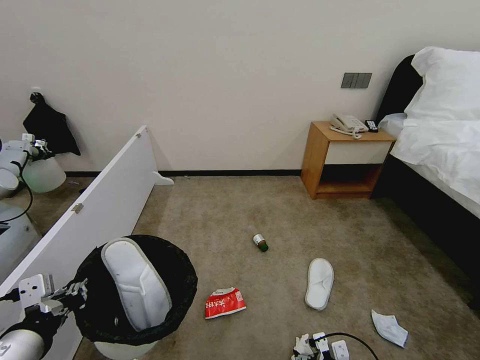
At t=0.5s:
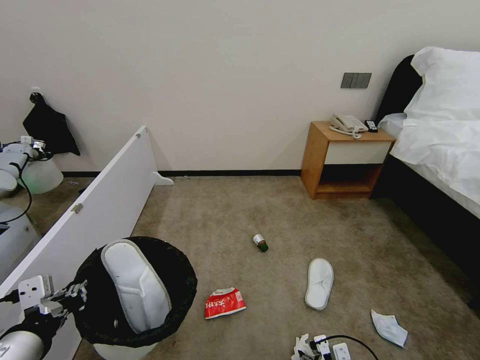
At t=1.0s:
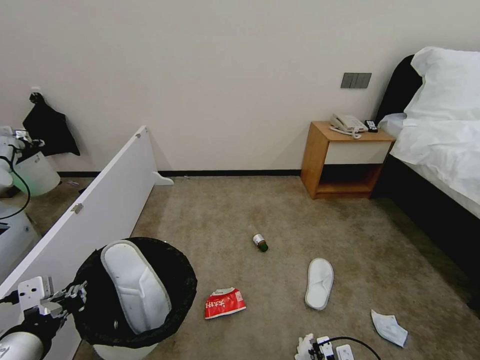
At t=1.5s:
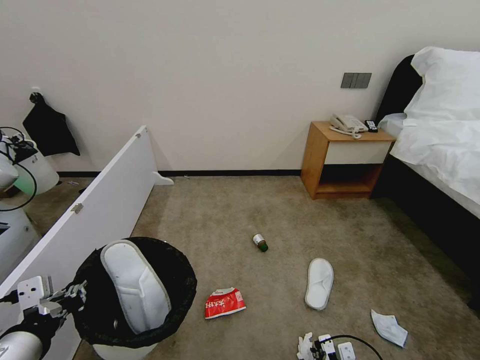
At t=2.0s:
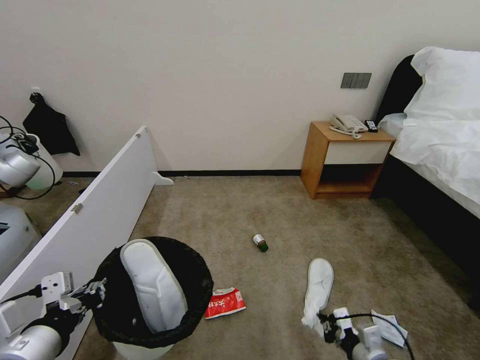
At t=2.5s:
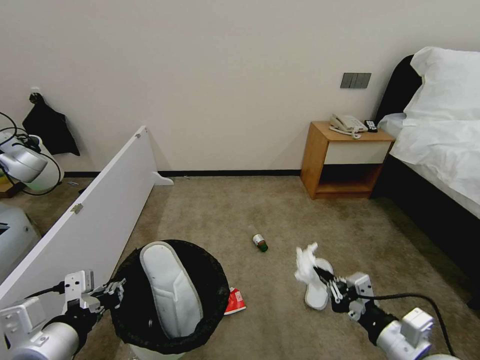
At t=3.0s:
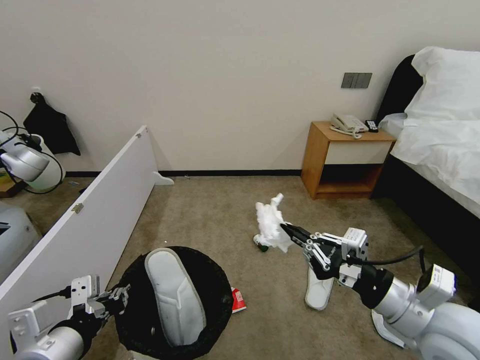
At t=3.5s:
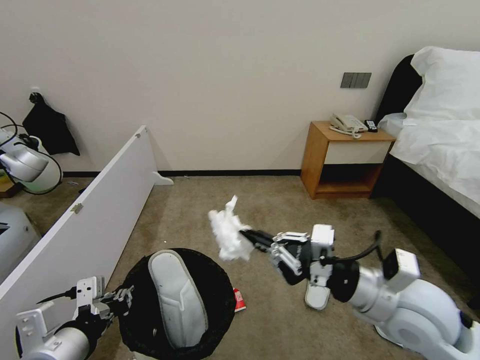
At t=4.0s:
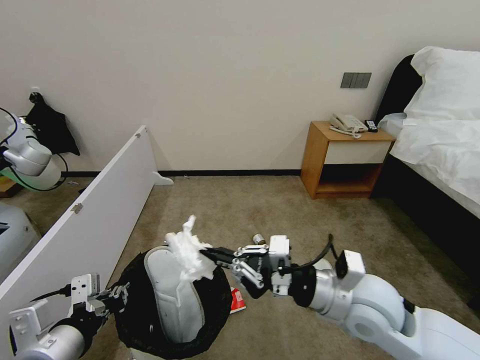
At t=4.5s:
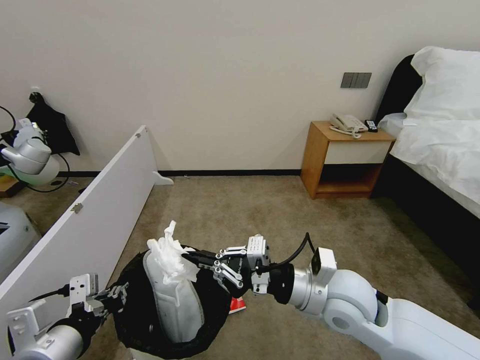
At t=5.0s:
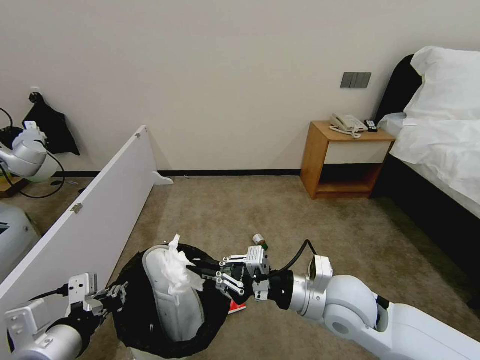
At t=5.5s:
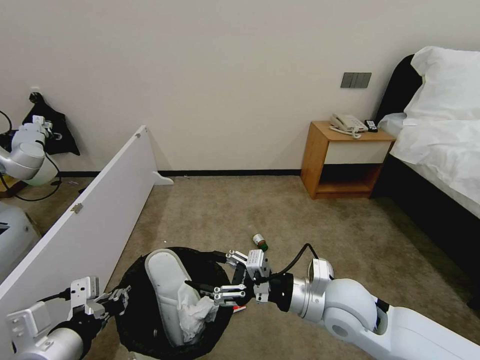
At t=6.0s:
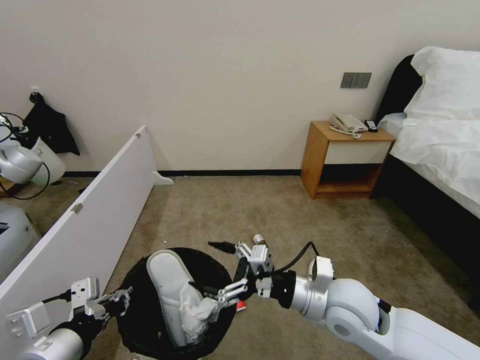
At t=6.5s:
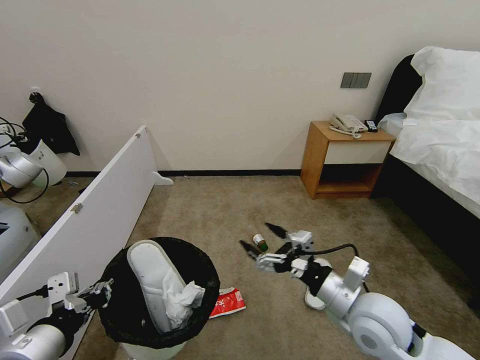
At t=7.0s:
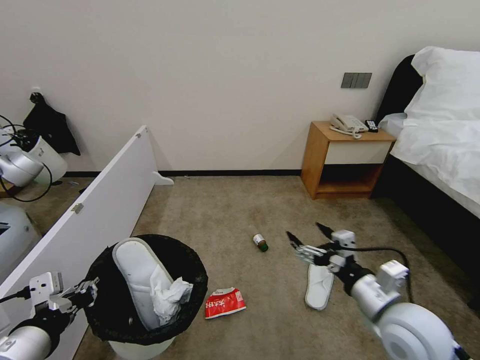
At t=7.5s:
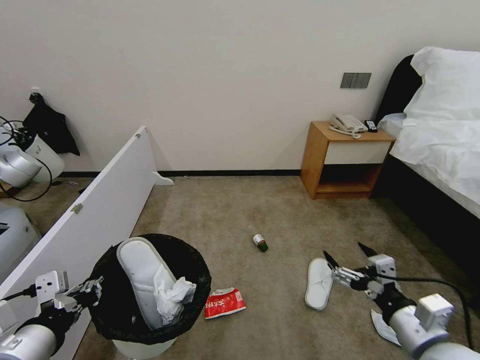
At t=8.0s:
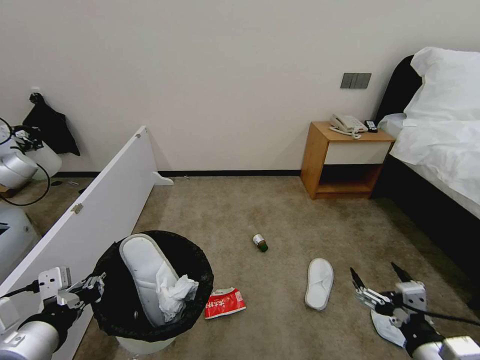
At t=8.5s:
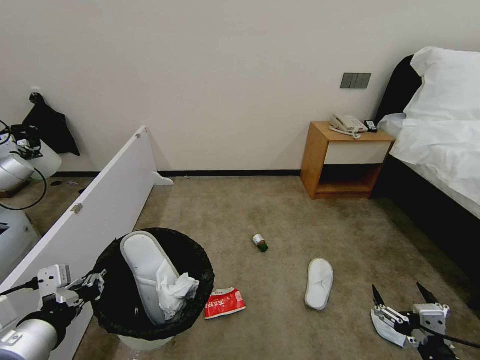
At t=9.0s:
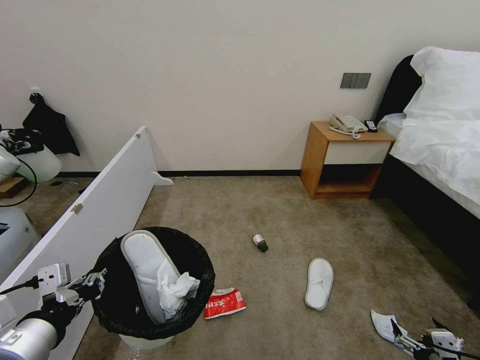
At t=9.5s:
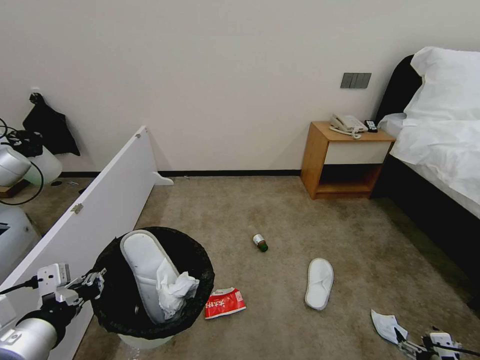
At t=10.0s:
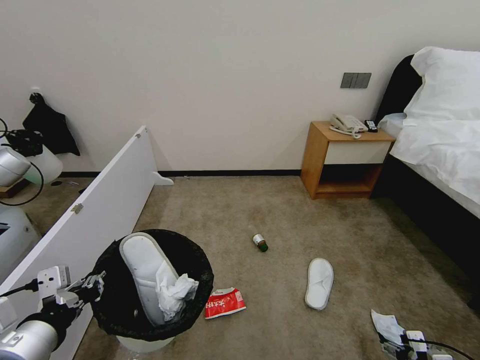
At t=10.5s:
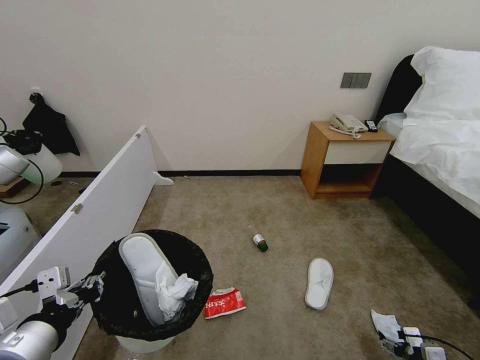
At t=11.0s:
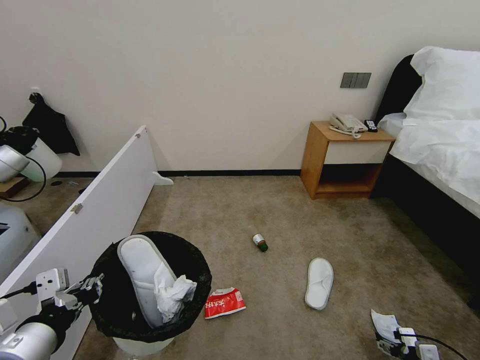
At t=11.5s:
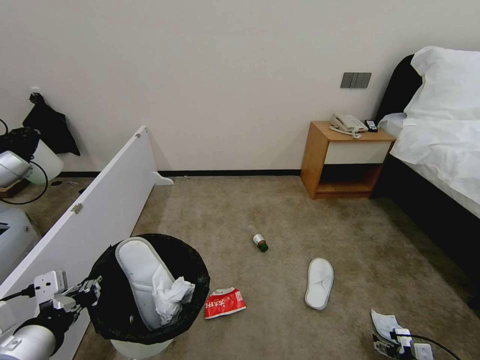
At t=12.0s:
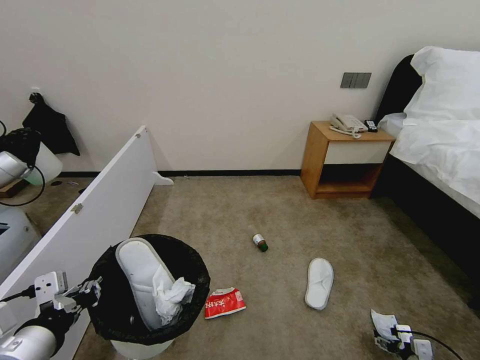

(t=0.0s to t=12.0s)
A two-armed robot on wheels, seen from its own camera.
Task of the whole recording: Pick up the trash bin, then pick up the garbage from the floor and place it into the trash bin.
t=0.0s - t=2.0s: The right gripper moves upward, roughly 10 cm, and closes.
t=2.0s - t=4.0s: The right gripper moves upward and to the left, roughly 25 cm.
t=4.0s - t=6.0s: The right gripper opens up.
t=6.0s - t=8.0s: The right gripper is displaced backward and to the right by about 20 cm.
t=8.0s - t=10.0s: The right gripper shifts approximately 25 cm downward and to the right.
t=10.0s - t=12.0s: The right gripper goes approximately 10 cm downward and forward.

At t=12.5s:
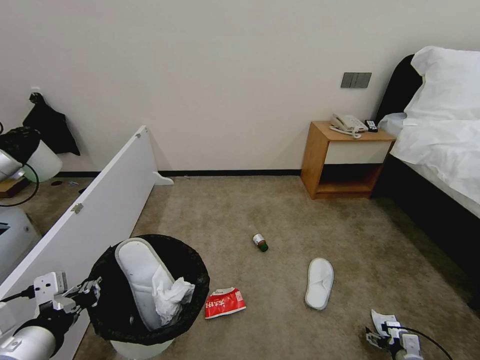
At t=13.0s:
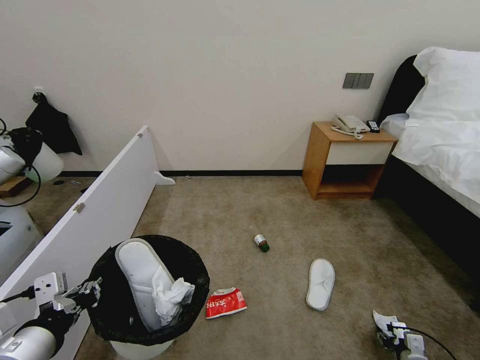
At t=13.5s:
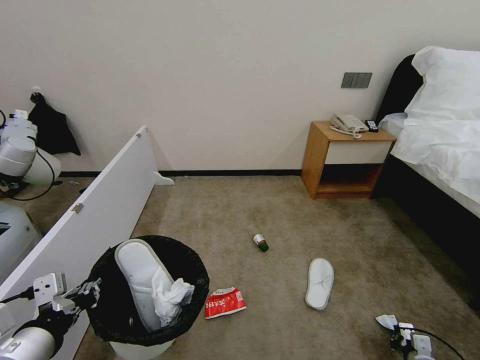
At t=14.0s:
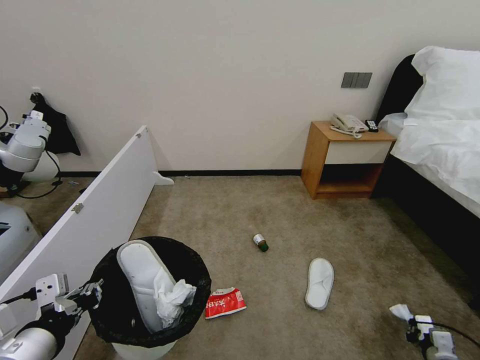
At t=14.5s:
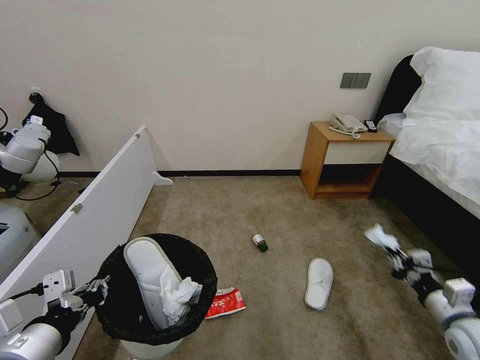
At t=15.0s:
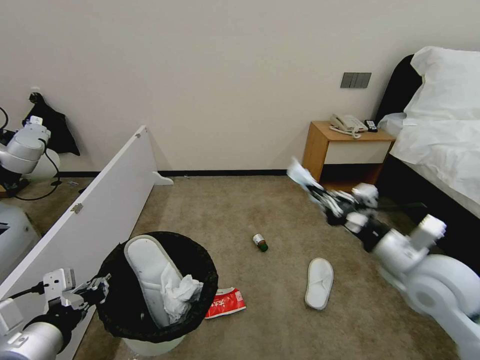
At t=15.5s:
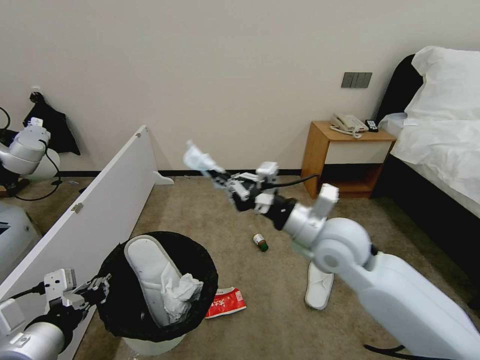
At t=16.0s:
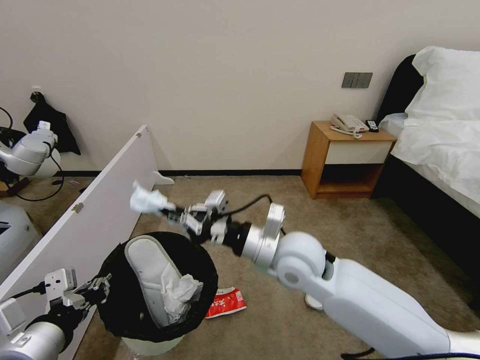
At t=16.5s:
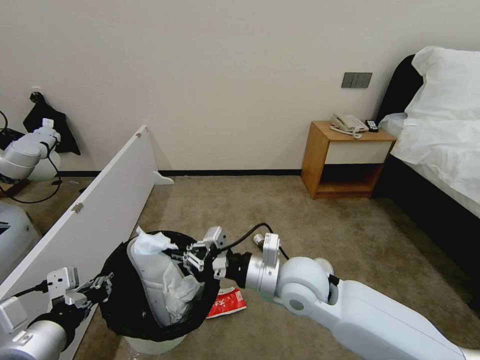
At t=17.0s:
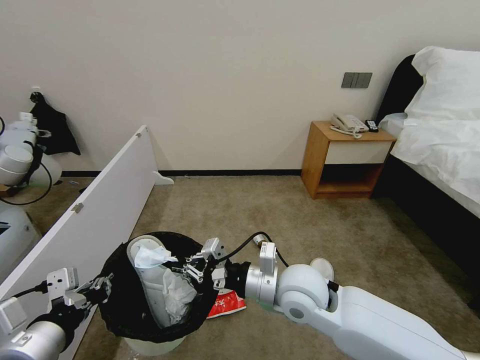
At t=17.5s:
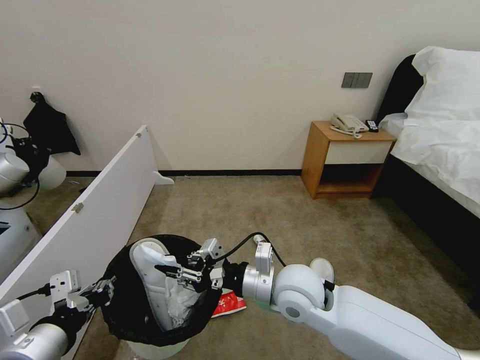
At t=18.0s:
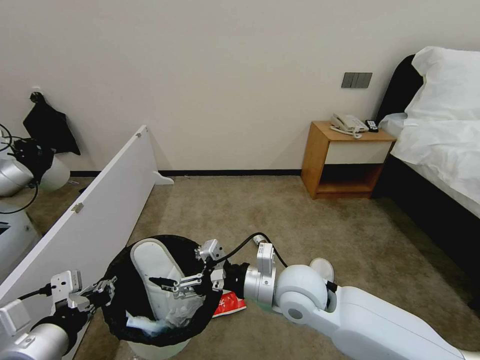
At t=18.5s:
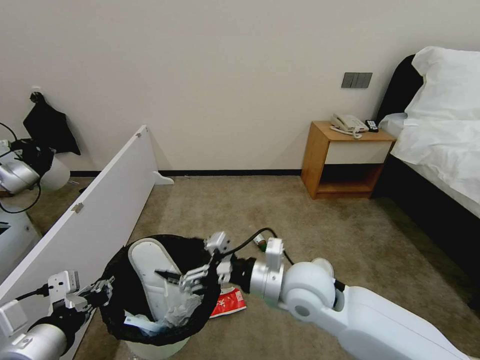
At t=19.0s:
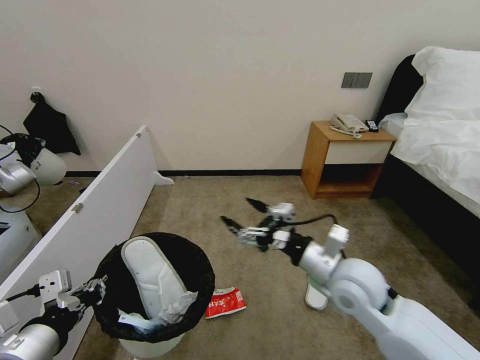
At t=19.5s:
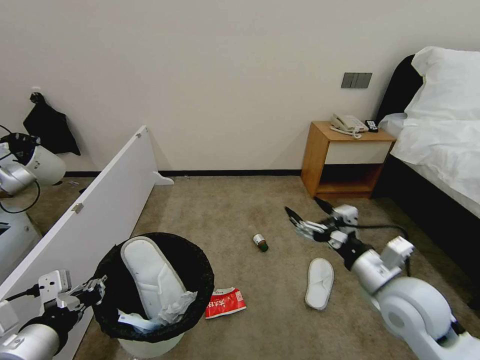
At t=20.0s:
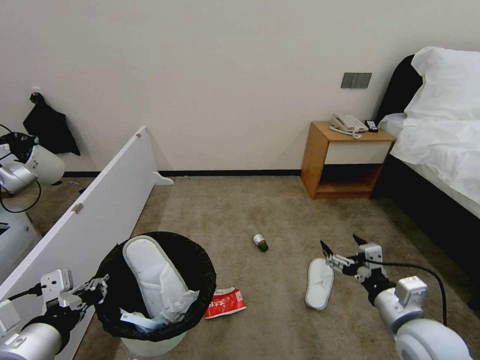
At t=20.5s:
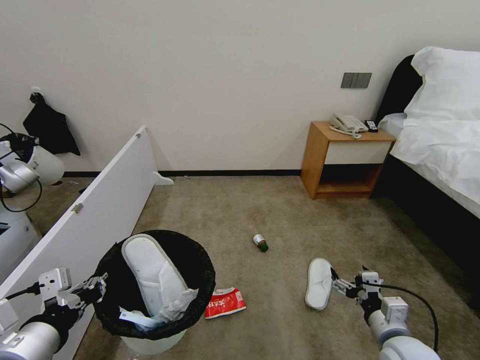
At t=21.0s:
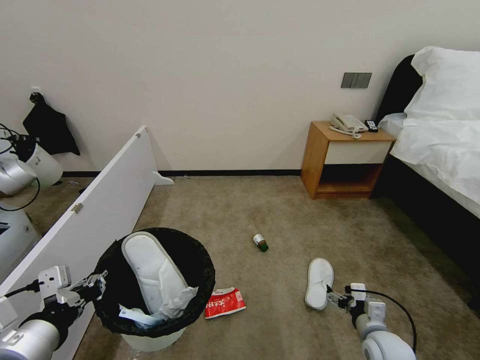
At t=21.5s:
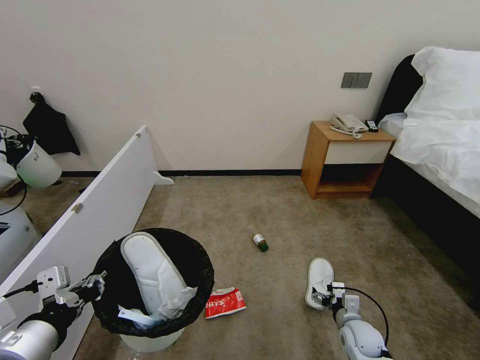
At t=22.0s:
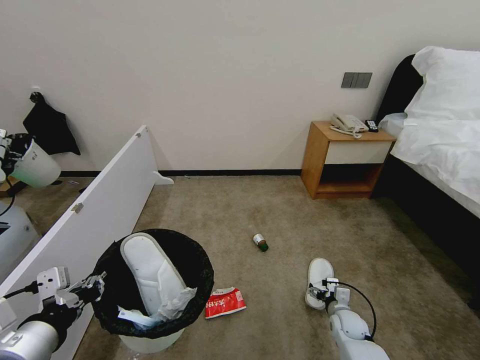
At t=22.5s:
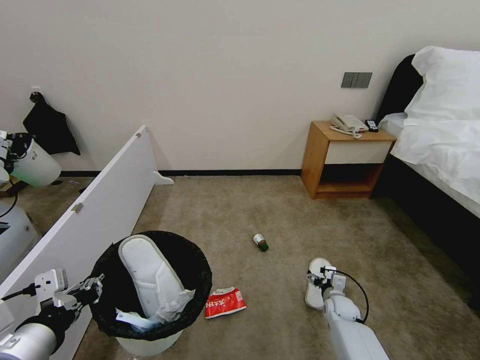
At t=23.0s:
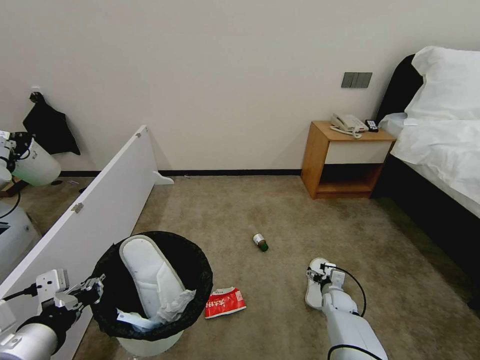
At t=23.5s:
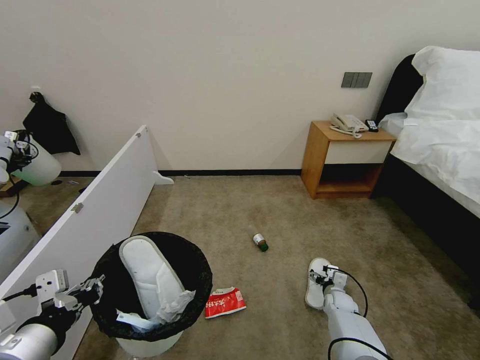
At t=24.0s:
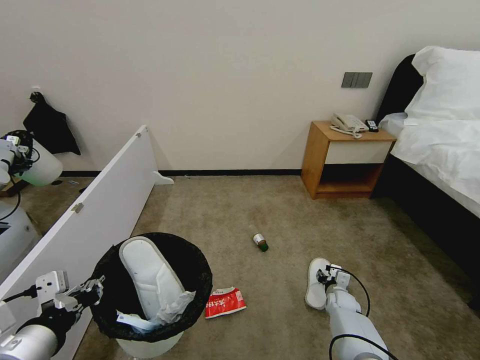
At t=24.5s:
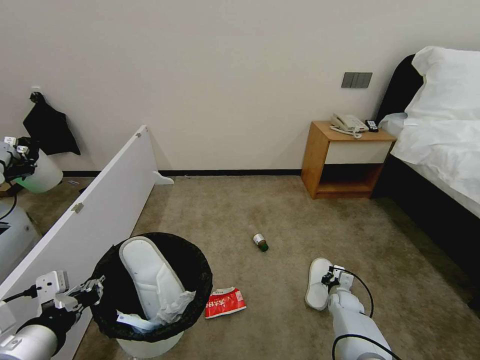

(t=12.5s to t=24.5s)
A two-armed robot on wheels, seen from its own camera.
Task of the whole recording: Pick up the trash bin, then pick up the garbage from the floor and place it into the trash bin.
t=12.5s - t=14.5s: The right gripper heads upward, covering roughly 25 cm, and closes.
t=14.5s - t=16.5s: The right gripper shifts about 35 cm to the left.
t=16.5s - t=18.5s: The right gripper opens up.
t=18.5s - t=20.5s: The right gripper moves to the right and downward, some 25 cm.
t=20.5s - t=22.5s: The right gripper moves forward and downward, about 25 cm.
t=22.5s - t=24.5s: The right gripper closes up.

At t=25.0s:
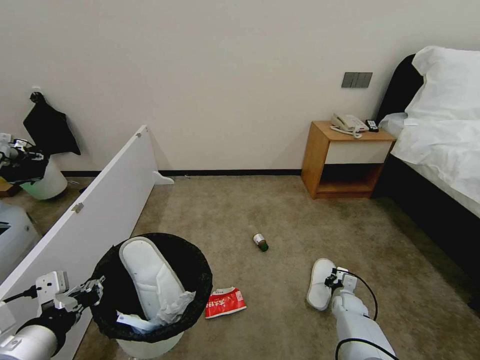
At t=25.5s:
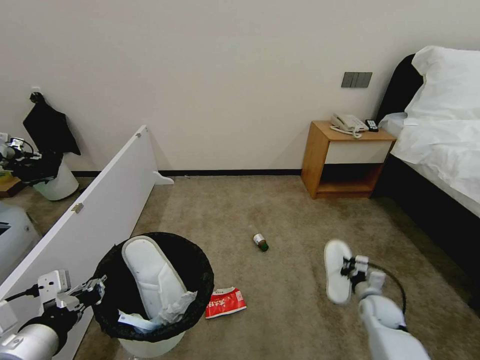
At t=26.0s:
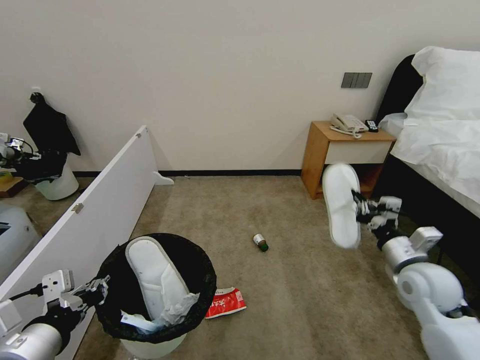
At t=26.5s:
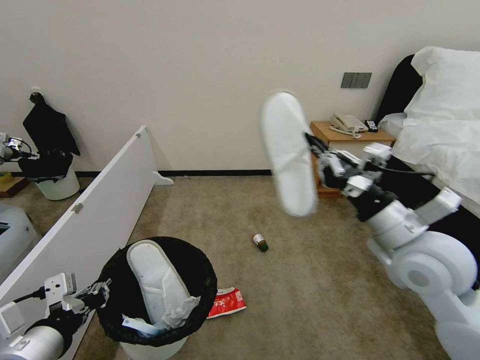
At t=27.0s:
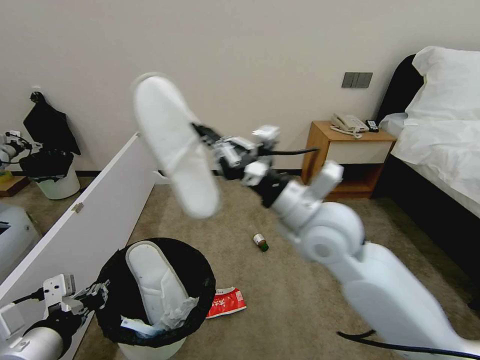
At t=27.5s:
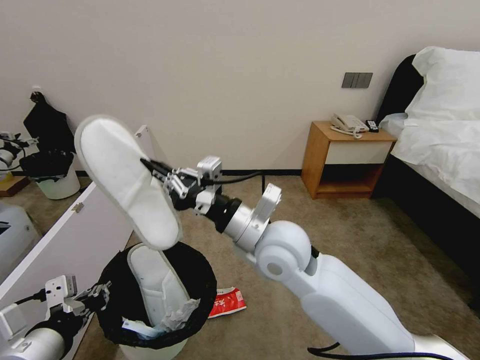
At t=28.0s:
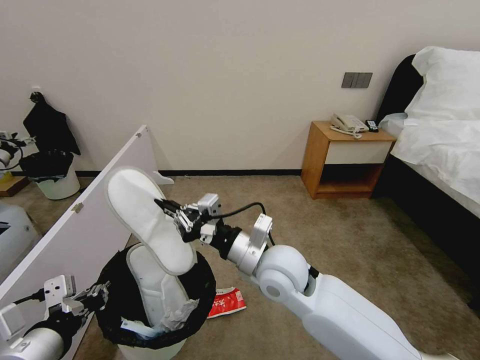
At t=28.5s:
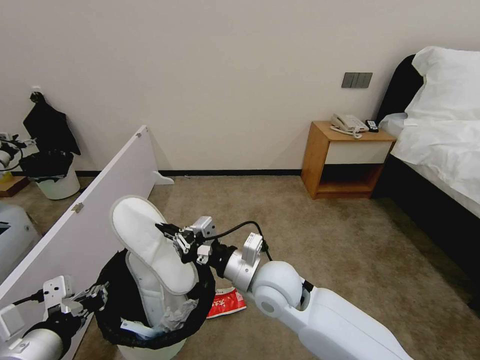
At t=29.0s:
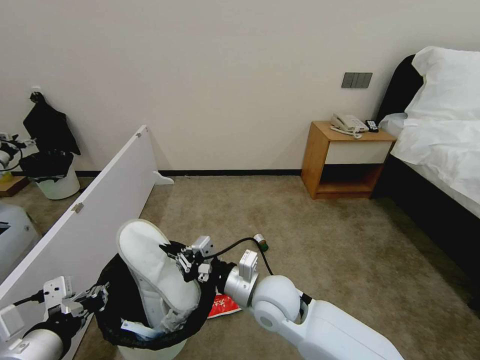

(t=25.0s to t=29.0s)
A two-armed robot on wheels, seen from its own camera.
Task of the whole recording: Pick up the trash bin, then pick up the garbage from the floor and place it into the trash bin.
t=25.0s - t=27.0s: The right gripper is displaced upward and to the left by approximately 50 cm.
t=27.0s - t=29.0s: The right gripper heads downward, covering about 20 cm.
